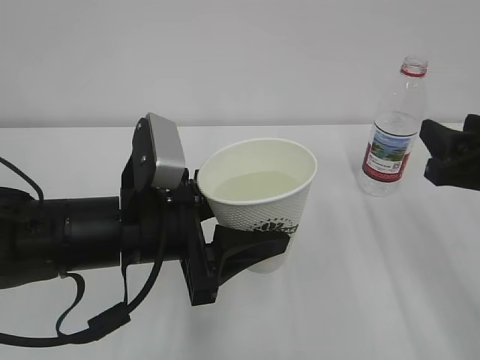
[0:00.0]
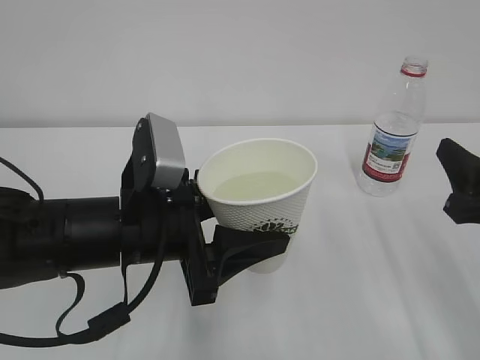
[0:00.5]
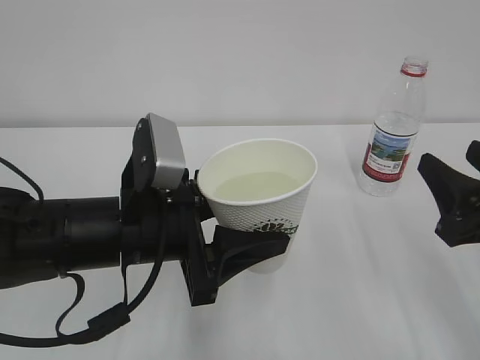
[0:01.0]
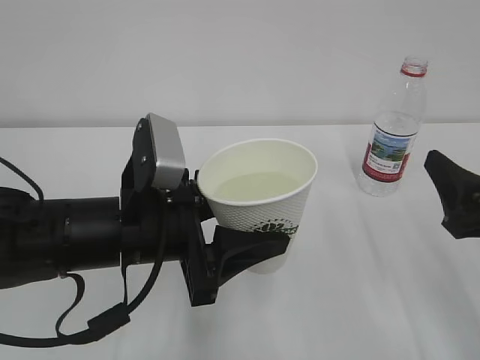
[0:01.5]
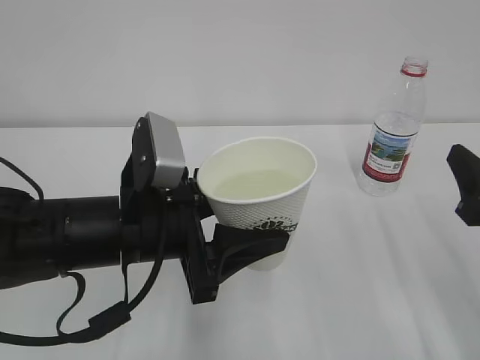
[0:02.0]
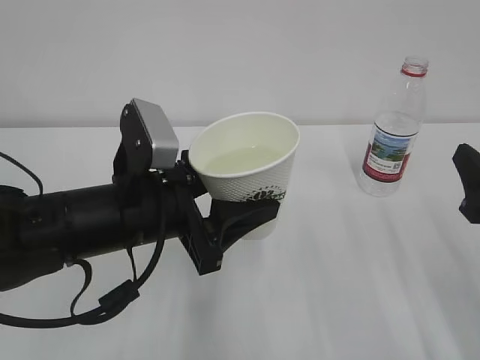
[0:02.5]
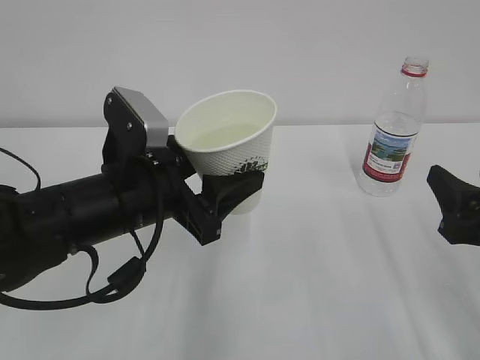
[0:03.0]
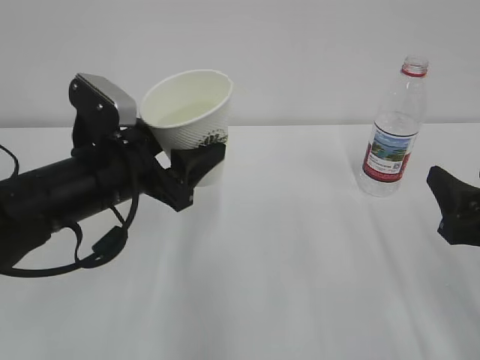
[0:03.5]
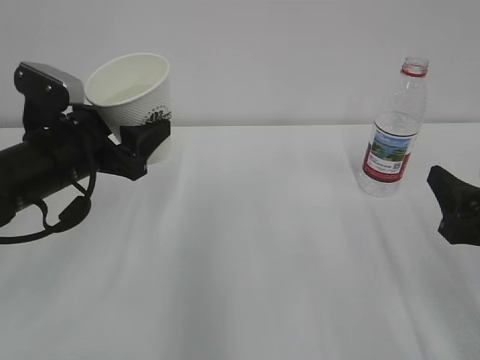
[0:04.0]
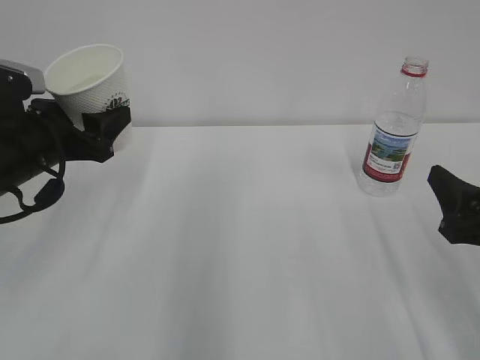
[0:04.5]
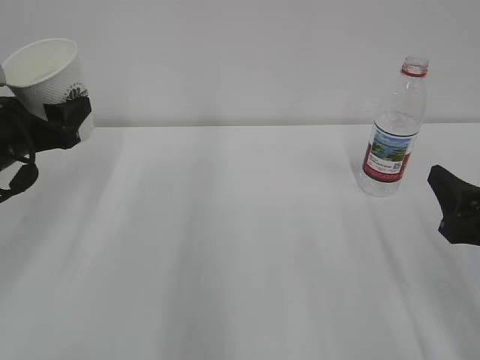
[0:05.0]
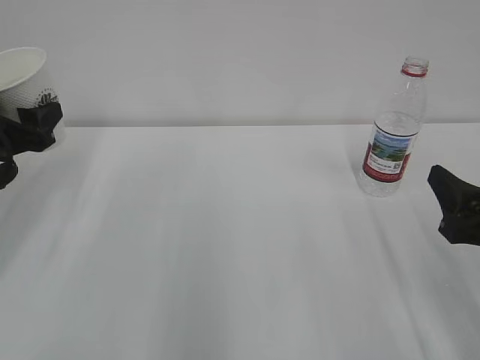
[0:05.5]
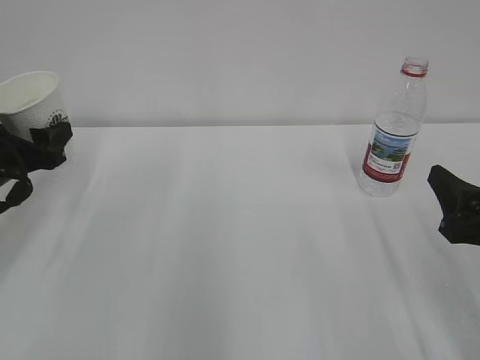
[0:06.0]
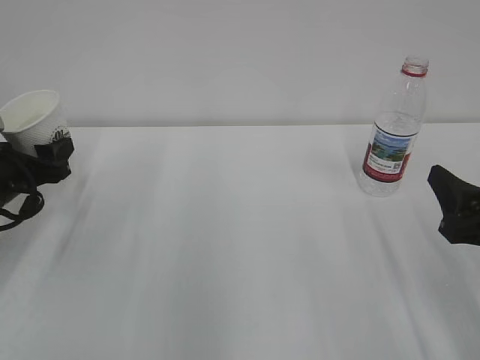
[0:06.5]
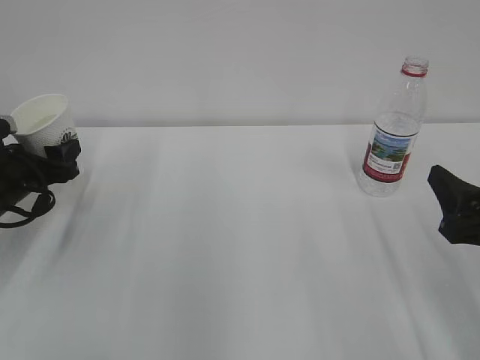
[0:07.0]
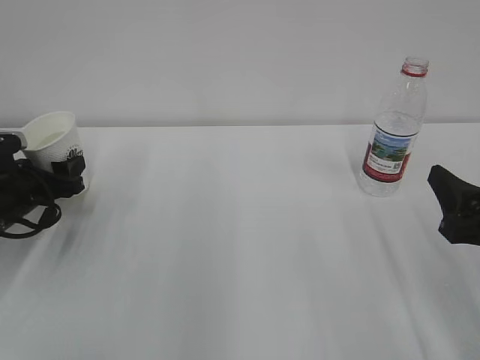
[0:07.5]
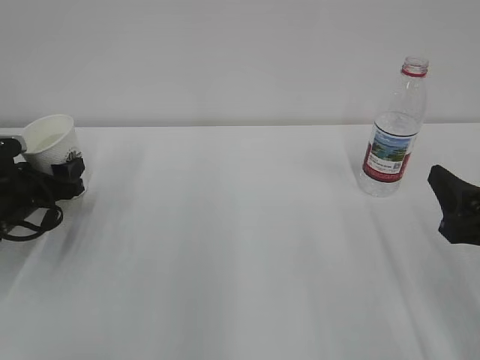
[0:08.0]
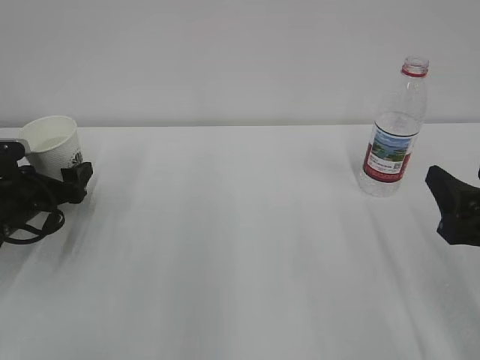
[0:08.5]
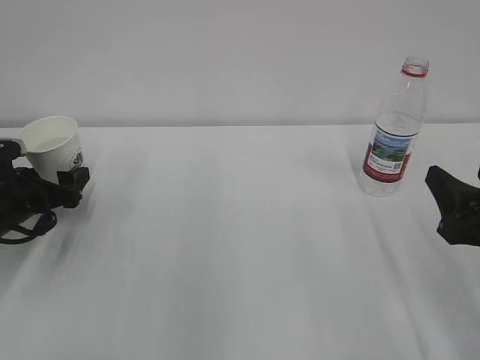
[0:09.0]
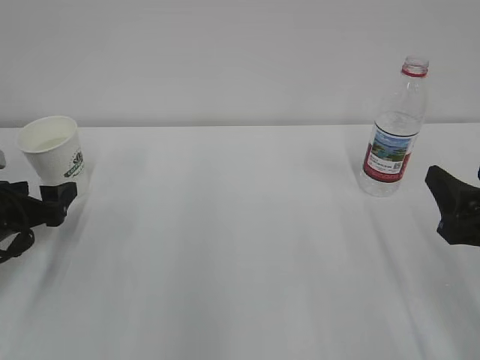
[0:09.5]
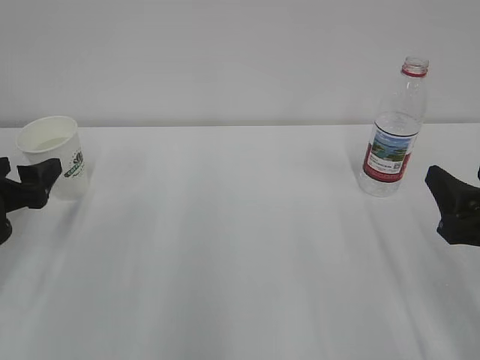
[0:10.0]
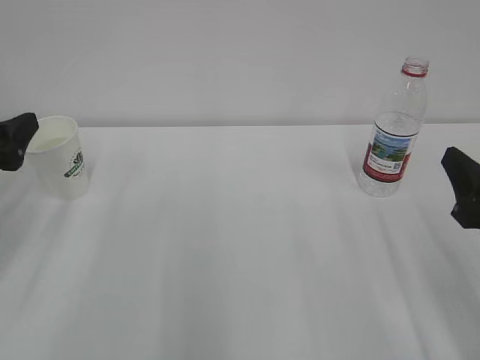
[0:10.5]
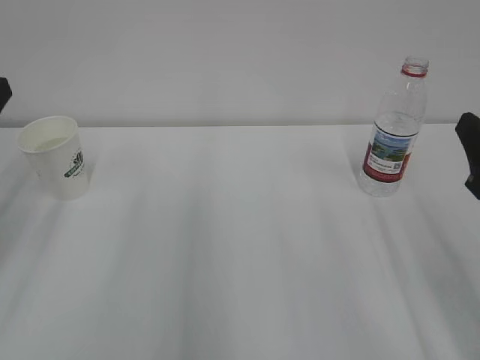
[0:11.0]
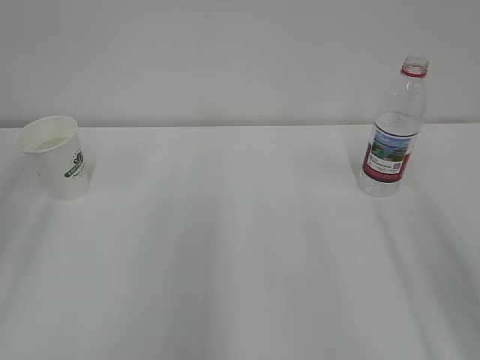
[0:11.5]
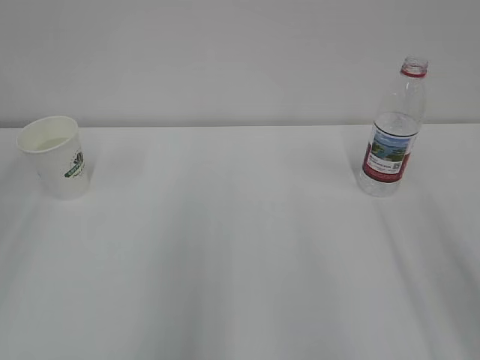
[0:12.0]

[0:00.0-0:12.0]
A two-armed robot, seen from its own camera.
0:00.0 to 0:02.0: The right gripper opens its fingers.
0:02.0 to 0:04.0: The left gripper heads to the left and forward, covering about 10 cm.
0:04.0 to 0:06.0: The left gripper shifts approximately 10 cm to the left.
0:06.0 to 0:08.0: The left gripper goes approximately 10 cm downward.
0:08.0 to 0:10.0: The left gripper moves backward and upward, some 10 cm, and opens its fingers.
0:10.0 to 0:12.0: The left gripper moves upward and backward, some 25 cm. The right gripper moves upward, some 10 cm.
